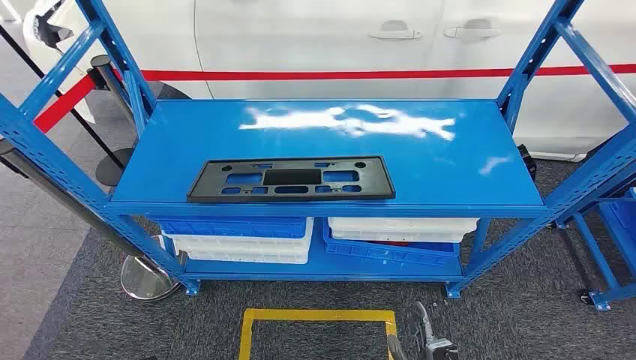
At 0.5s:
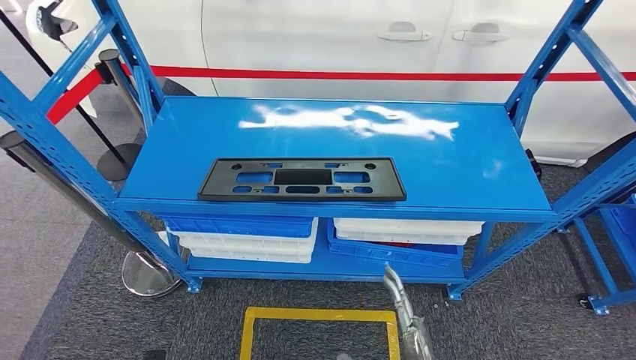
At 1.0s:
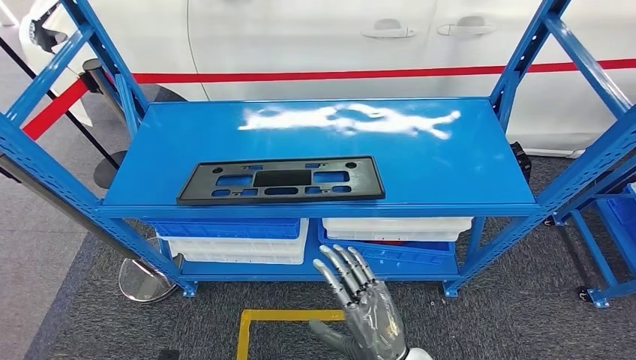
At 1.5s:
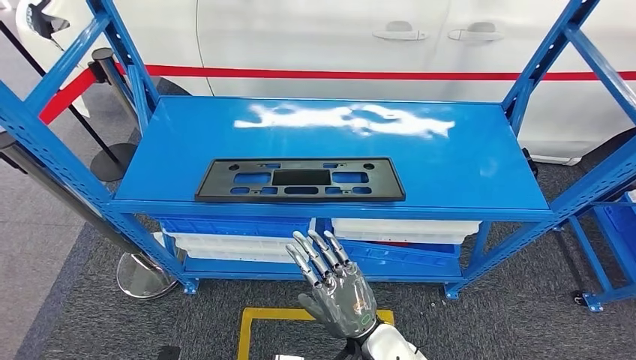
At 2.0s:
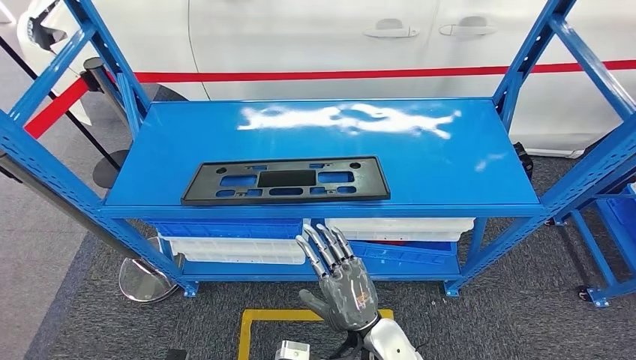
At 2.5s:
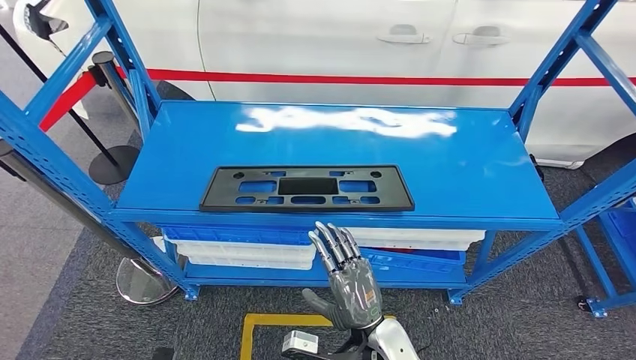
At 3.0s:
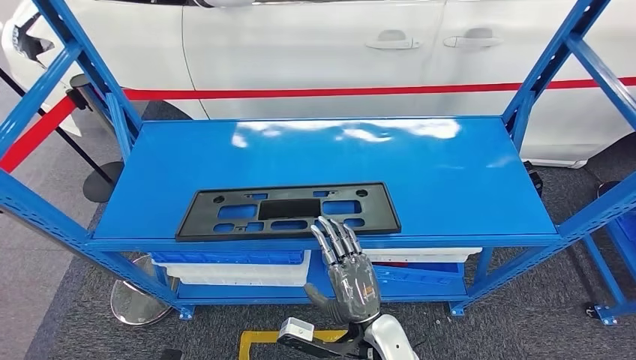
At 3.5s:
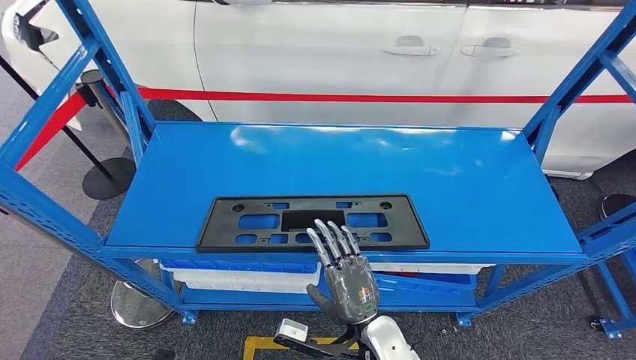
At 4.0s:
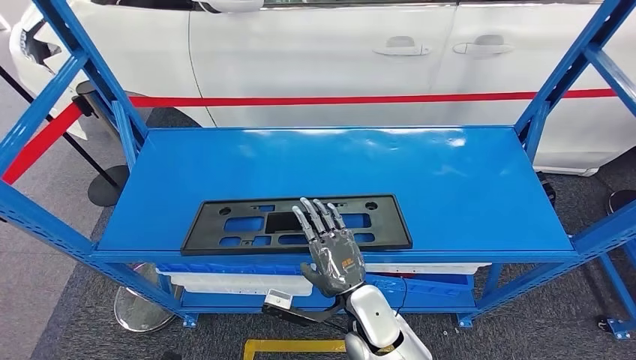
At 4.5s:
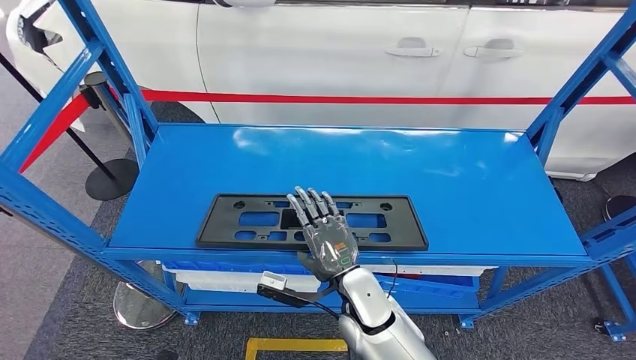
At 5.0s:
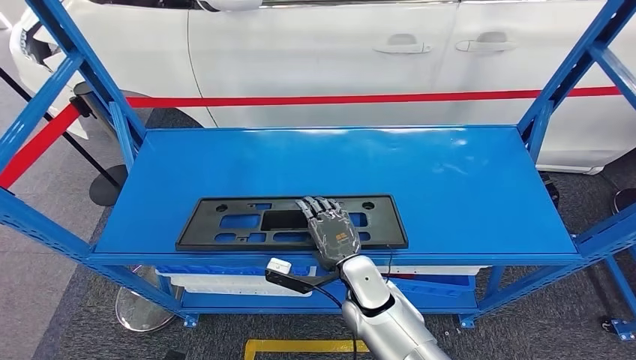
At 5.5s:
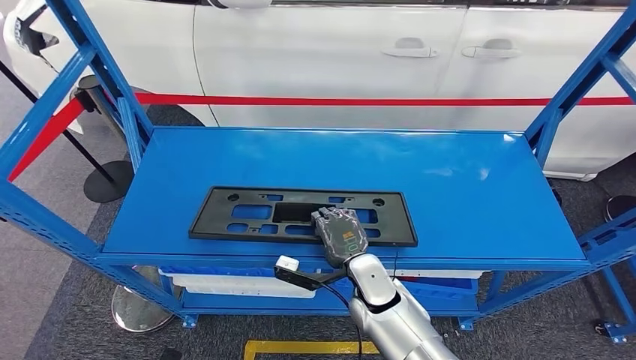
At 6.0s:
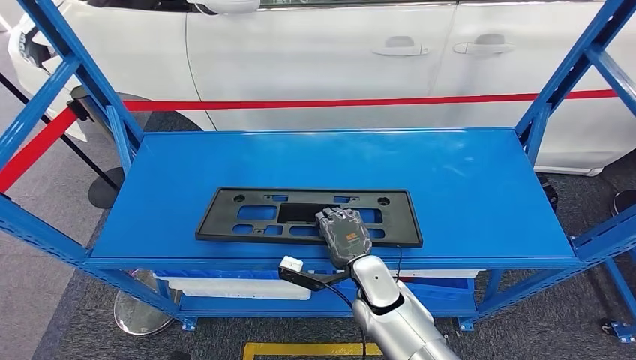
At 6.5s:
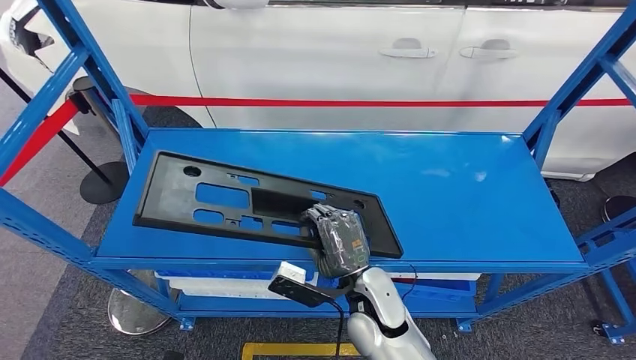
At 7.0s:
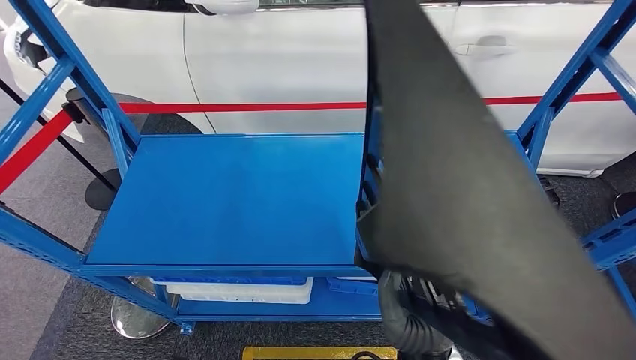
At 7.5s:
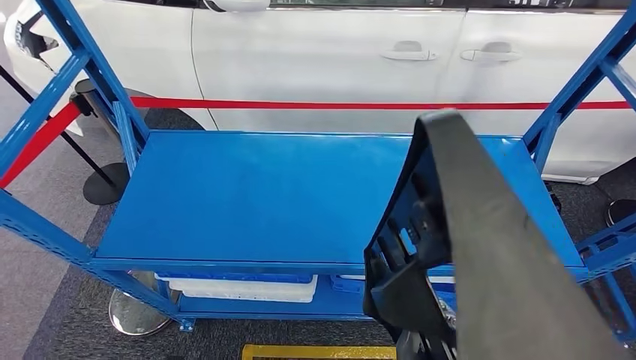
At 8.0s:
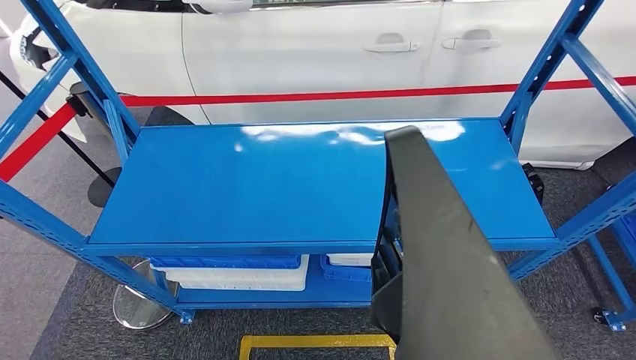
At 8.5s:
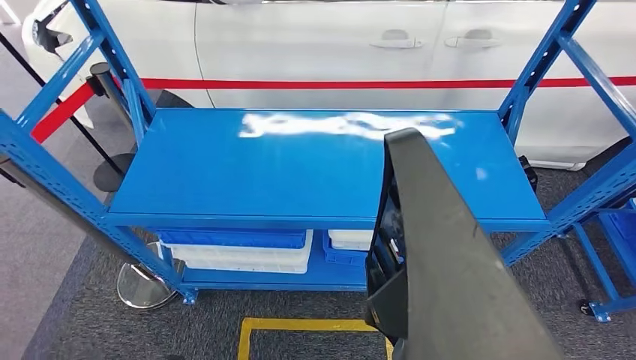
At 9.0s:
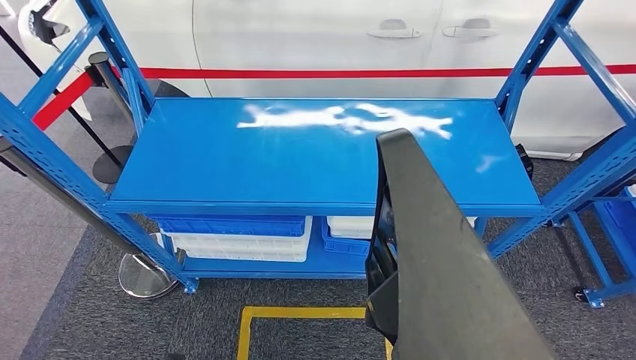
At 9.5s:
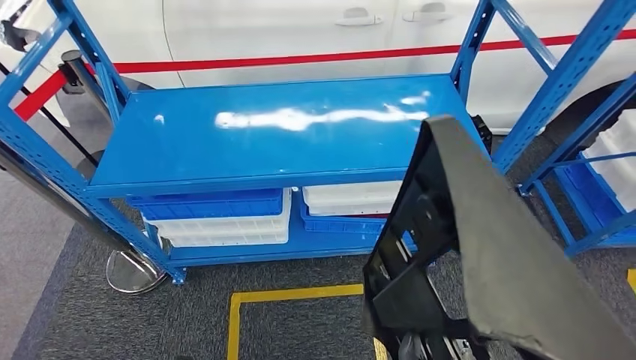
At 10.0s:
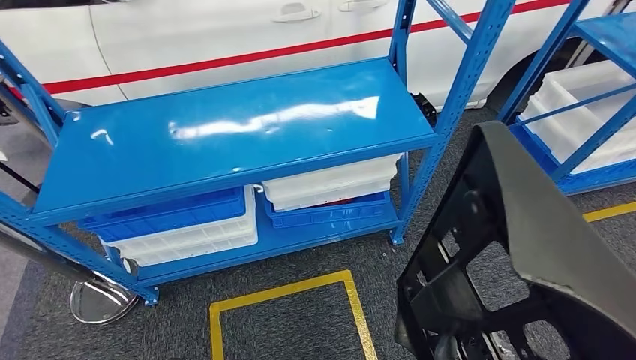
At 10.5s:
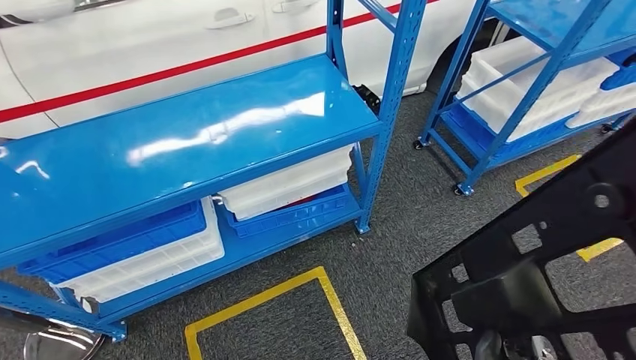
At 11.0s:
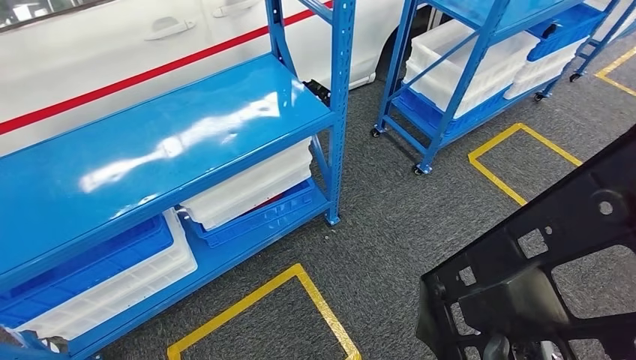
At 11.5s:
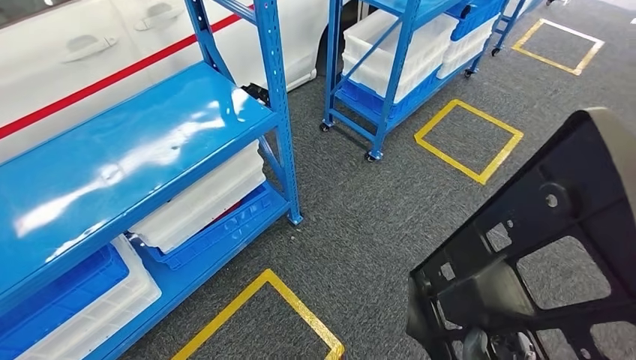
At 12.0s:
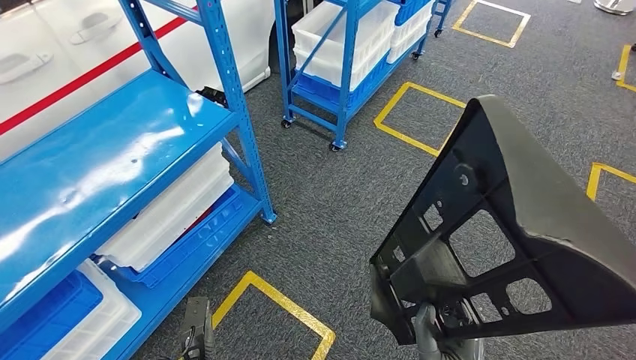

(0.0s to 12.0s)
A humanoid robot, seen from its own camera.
Step, 0.0s - 7.5s: Pick up the large material from the shelf.

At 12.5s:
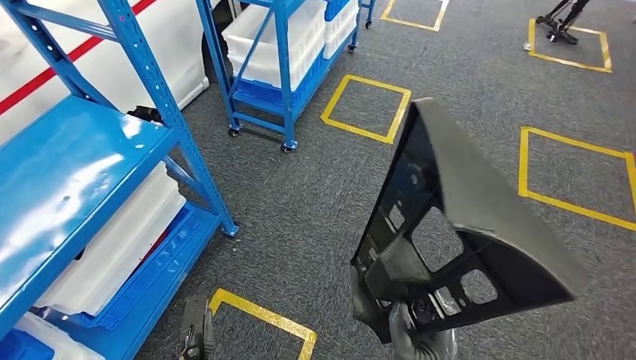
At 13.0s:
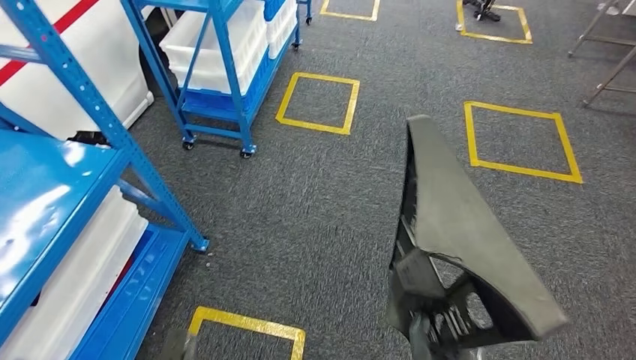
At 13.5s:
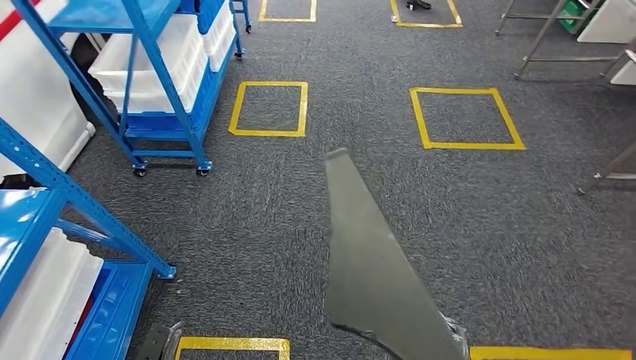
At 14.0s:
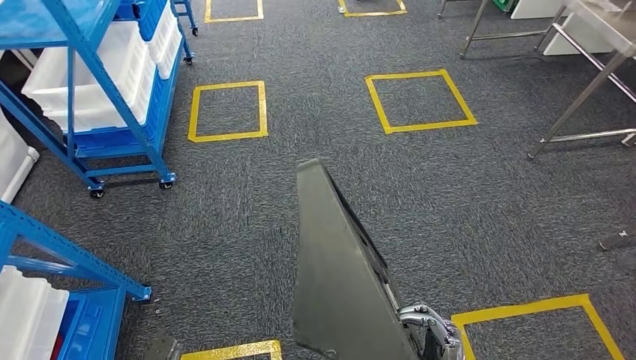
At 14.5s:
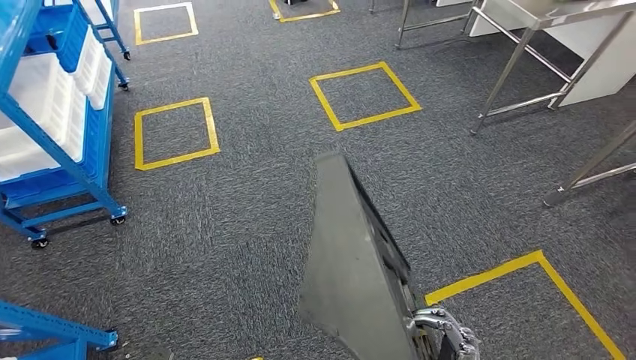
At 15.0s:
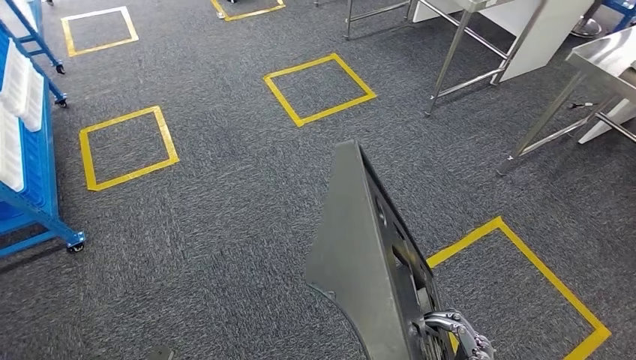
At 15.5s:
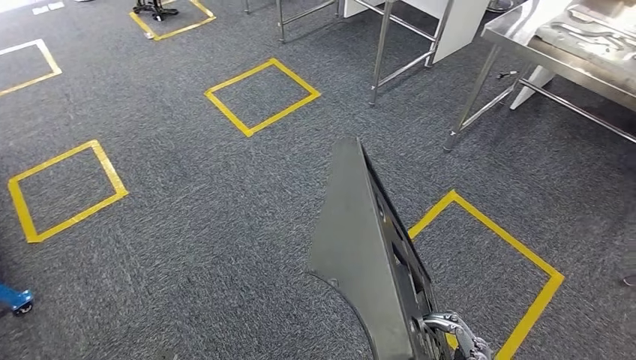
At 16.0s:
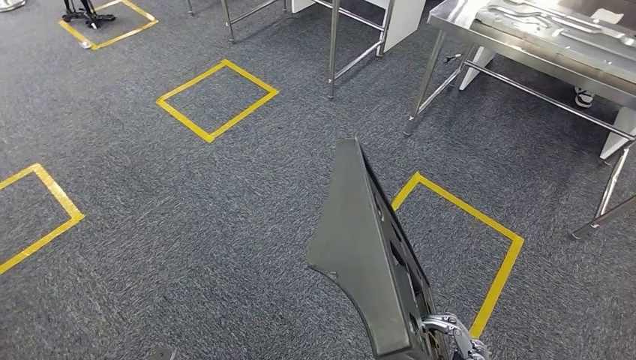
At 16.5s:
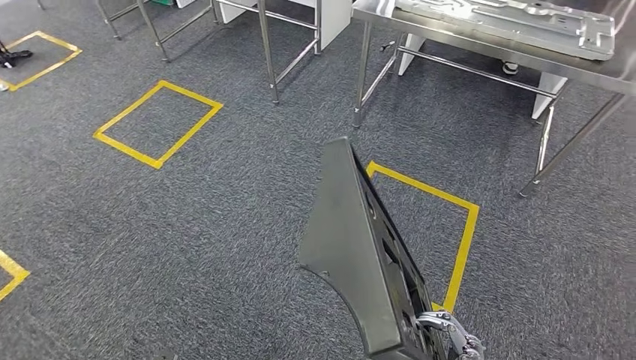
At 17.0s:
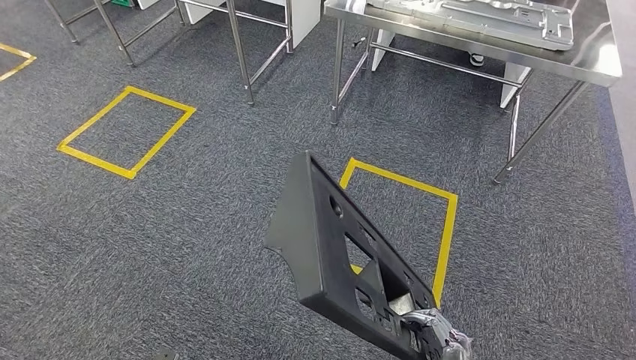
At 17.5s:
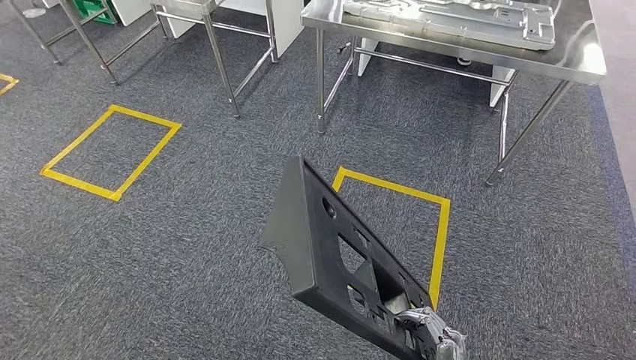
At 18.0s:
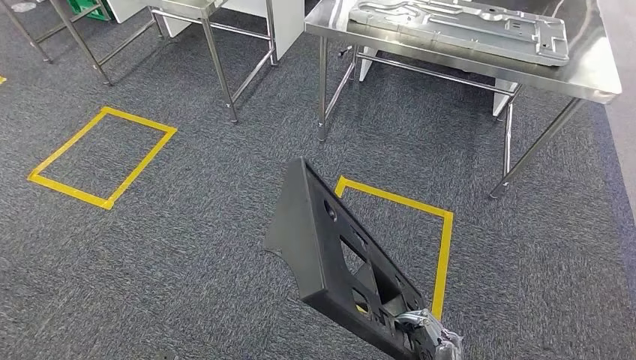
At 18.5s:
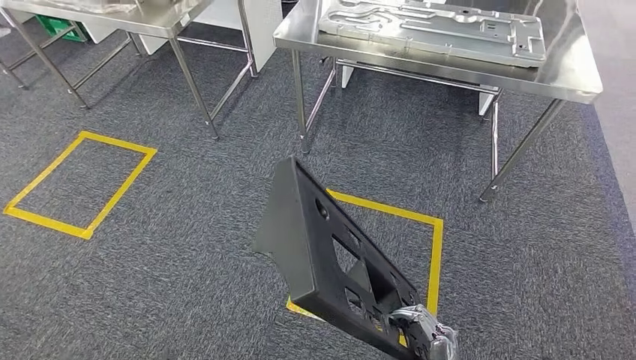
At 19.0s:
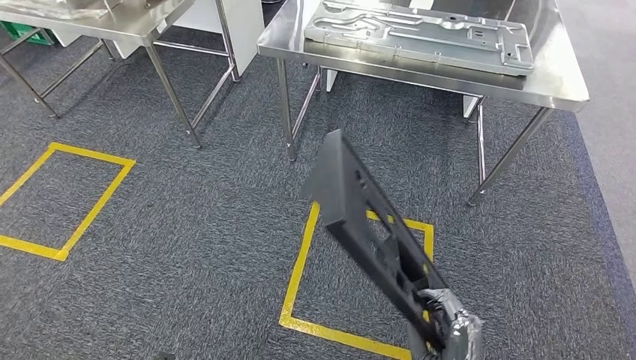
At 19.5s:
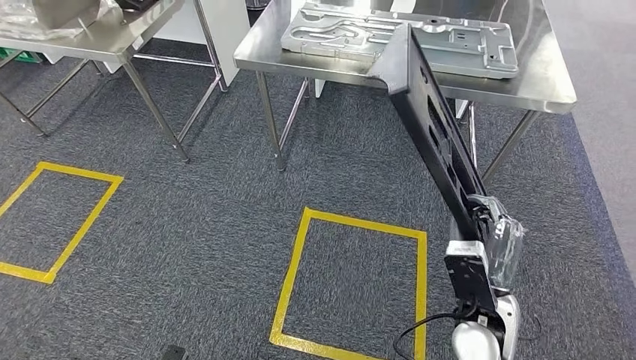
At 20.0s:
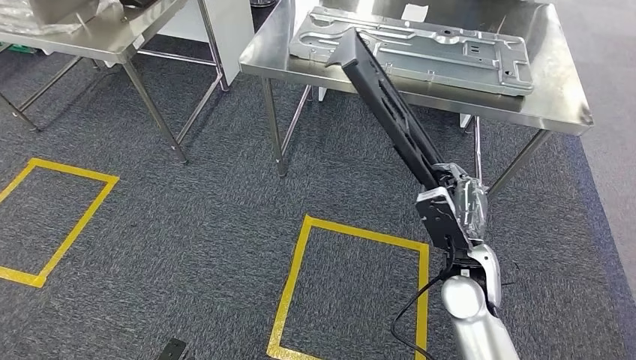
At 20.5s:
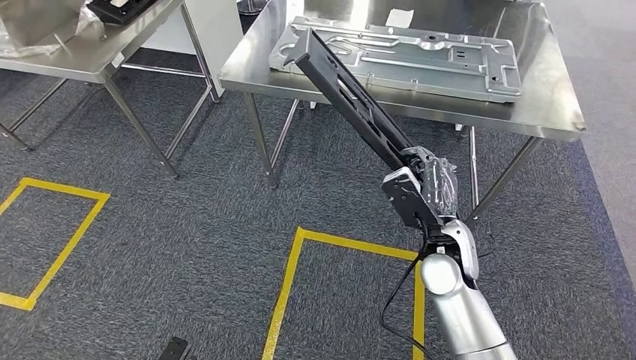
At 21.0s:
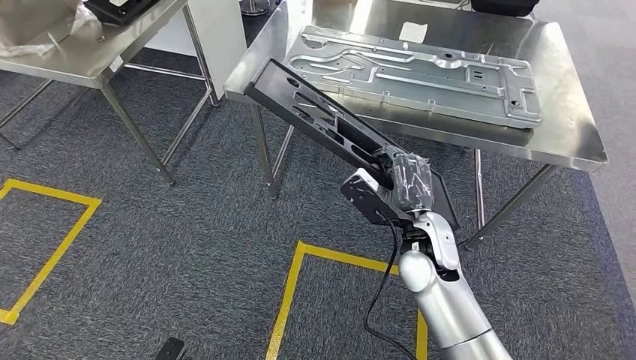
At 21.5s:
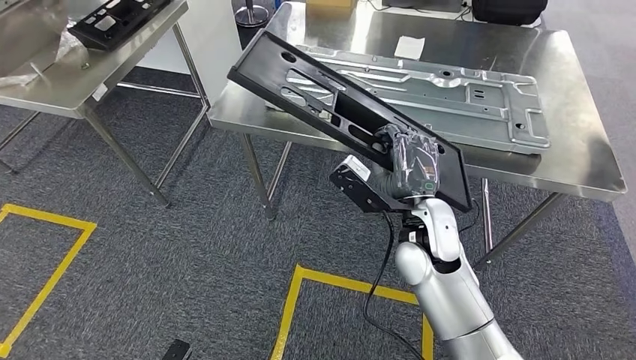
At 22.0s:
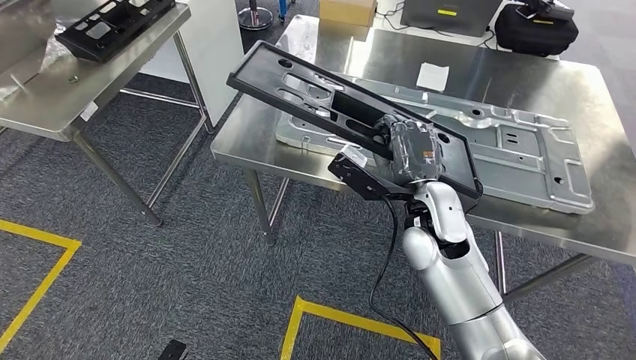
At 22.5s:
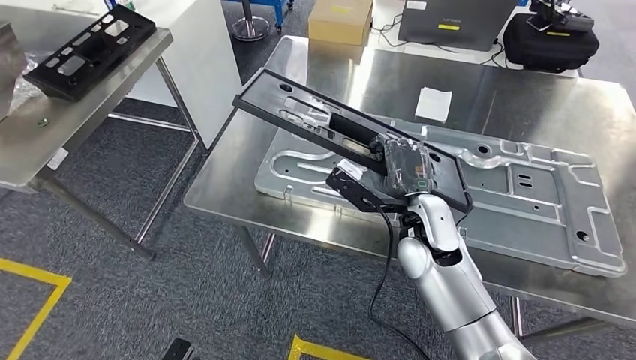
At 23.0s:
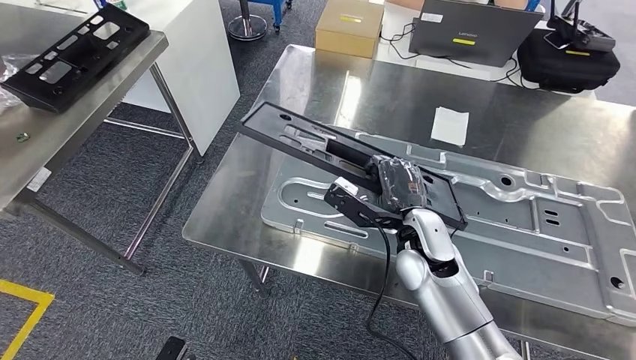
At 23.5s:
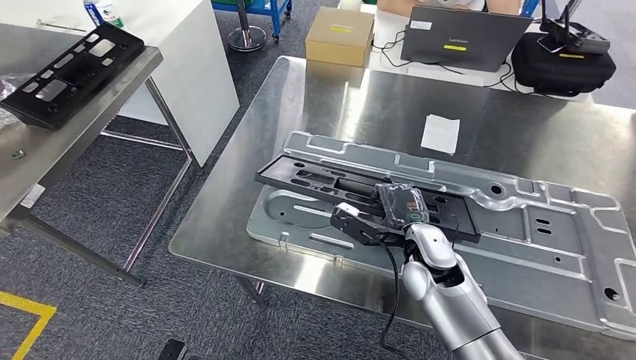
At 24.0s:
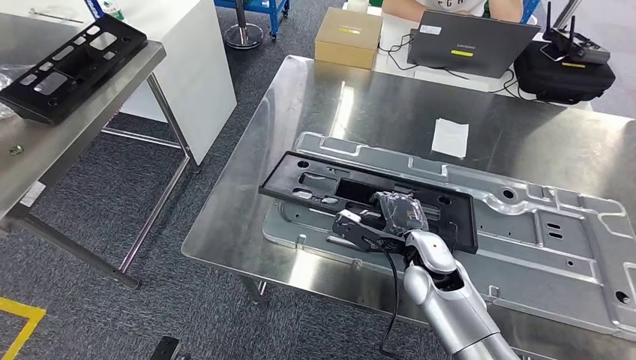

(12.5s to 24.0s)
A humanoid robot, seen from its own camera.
Step, 12.5s - 23.0s: Move the large material to the workbench.
